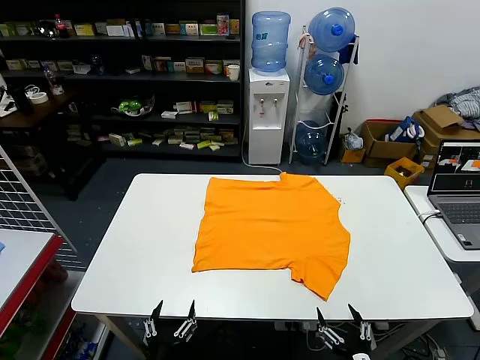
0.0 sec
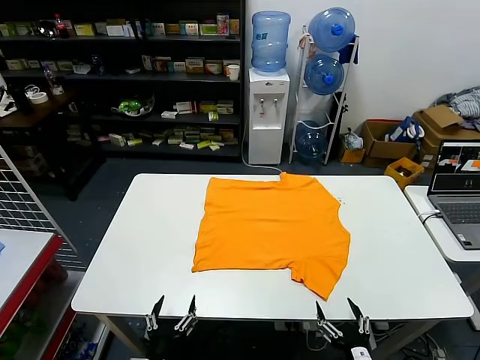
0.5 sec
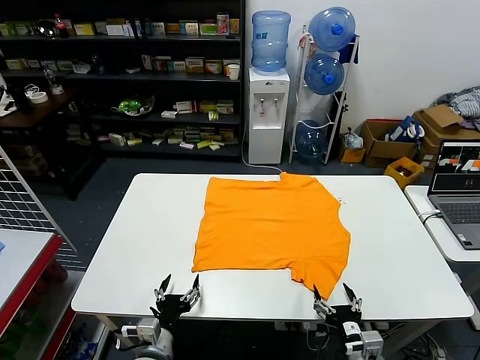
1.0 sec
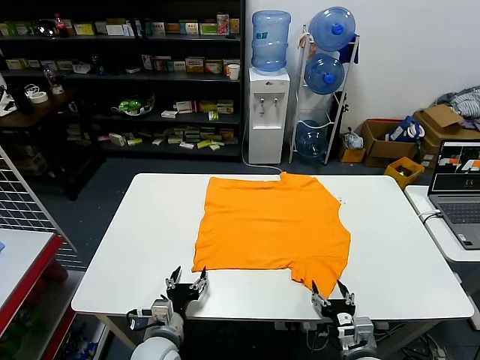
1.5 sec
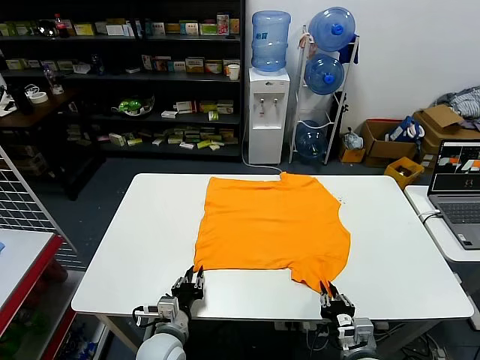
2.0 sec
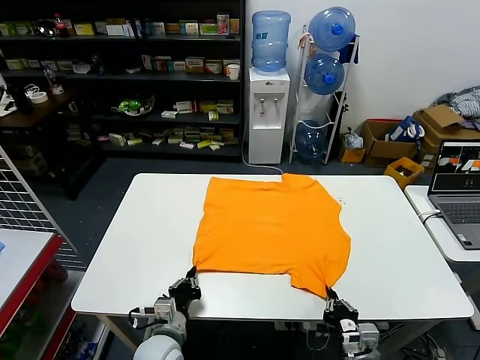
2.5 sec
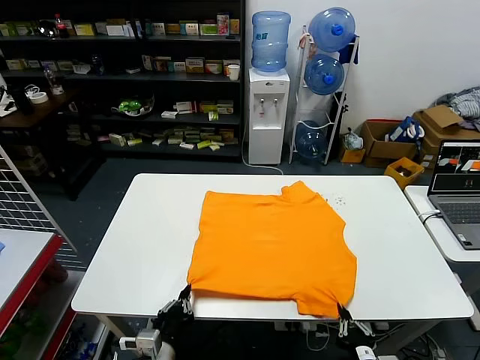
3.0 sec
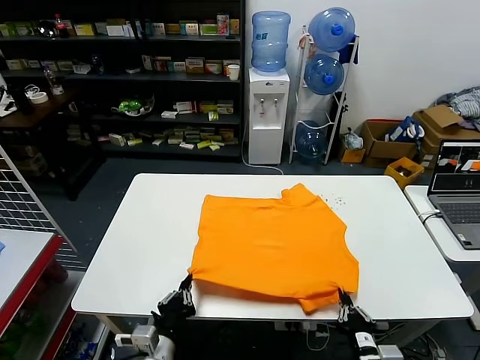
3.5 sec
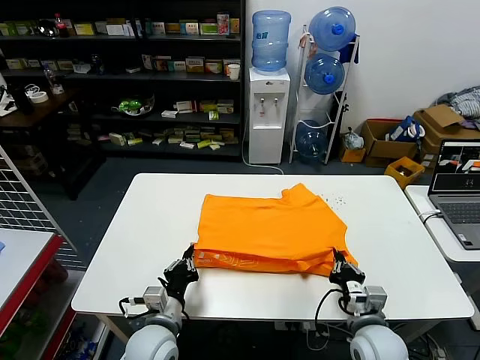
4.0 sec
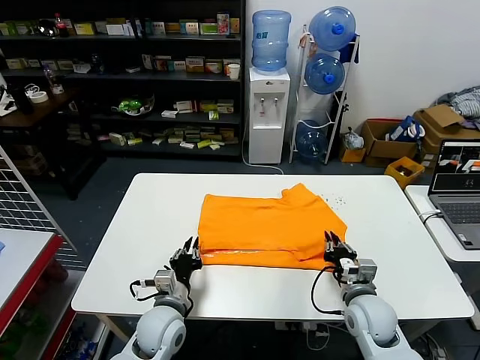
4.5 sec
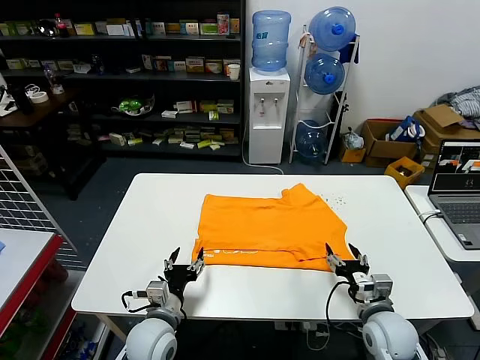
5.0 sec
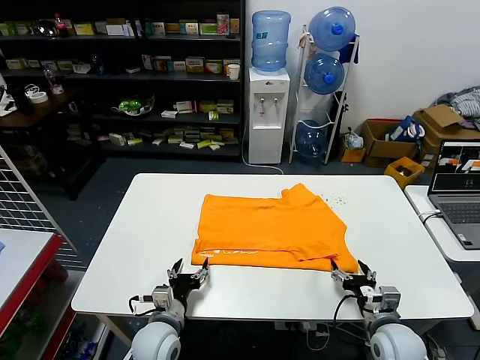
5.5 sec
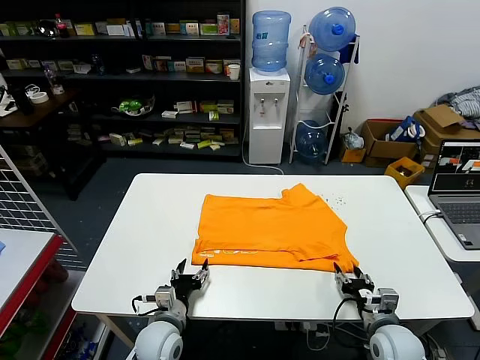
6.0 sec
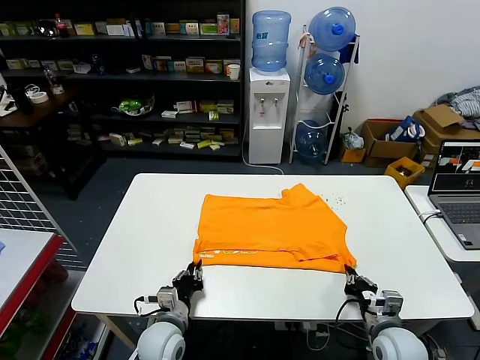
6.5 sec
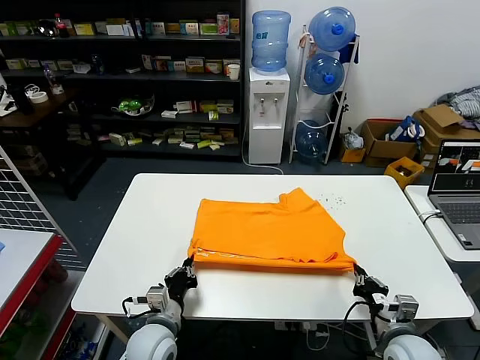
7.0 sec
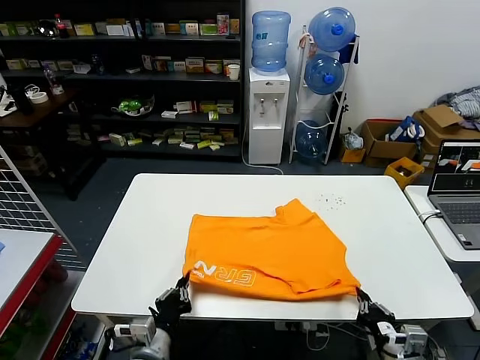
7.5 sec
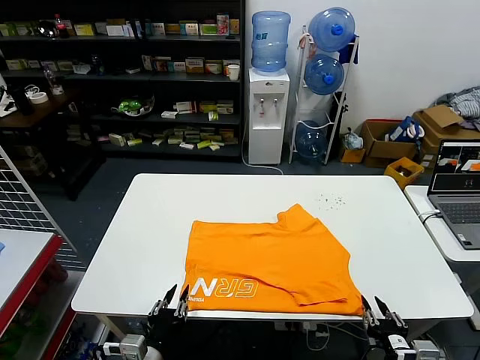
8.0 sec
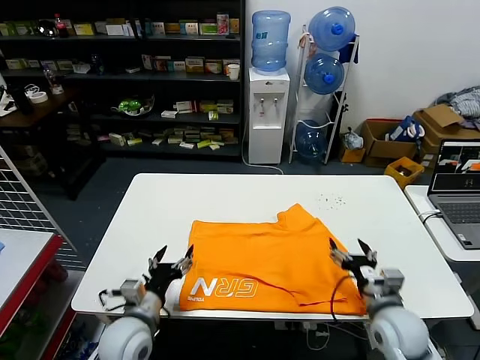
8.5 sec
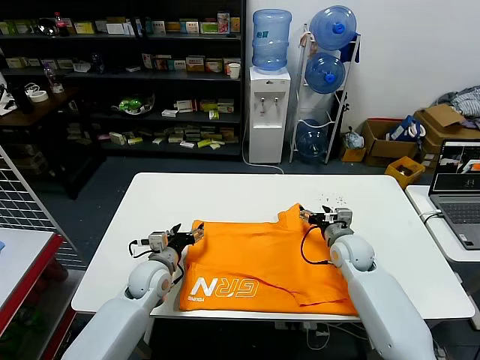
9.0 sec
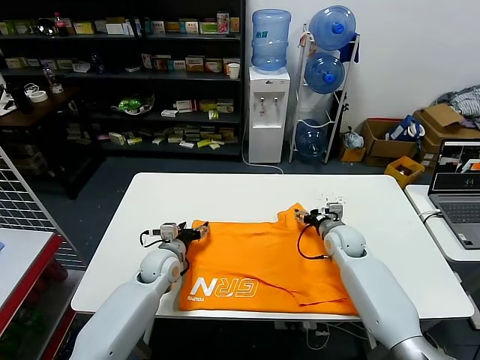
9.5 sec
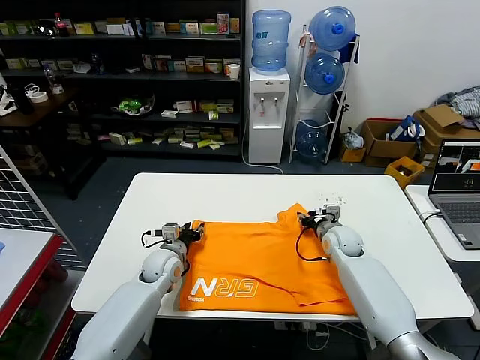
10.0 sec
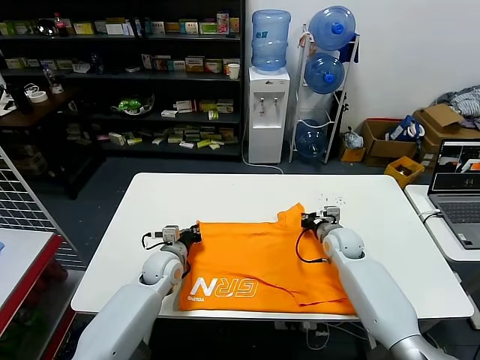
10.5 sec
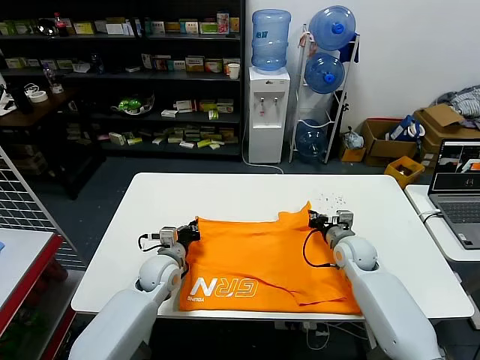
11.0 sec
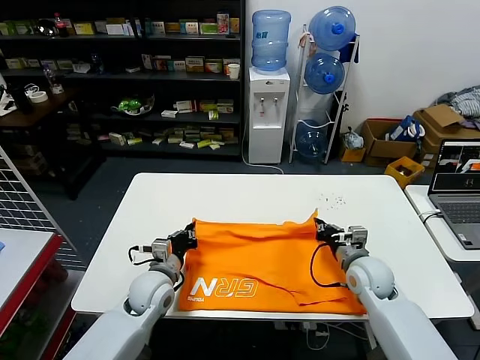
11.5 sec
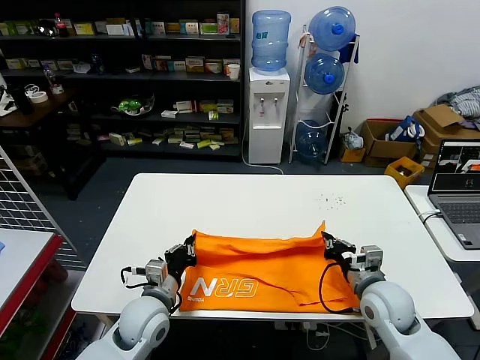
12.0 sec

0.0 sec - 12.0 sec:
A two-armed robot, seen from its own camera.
Task of the whole recording: fold and organize the clothes.
Step, 0.0 sec - 2.5 sec: use both grippers simultaneously to clamp the lower edge of the clothing fabric.
Step, 3.0 sec - 4.5 sec: use both grippers to drag the lower edge of the fabric forward and fold it over the upper edge.
Step, 5.0 sec - 7.5 sec: Drag the clothes downward with both gripper.
Step, 8.0 sec - 10.0 sec: use both grippers simultaneously to clamp the upper edge of the clothing fabric.
2.0 sec - 4.0 sec: Both grippers move upward, roughly 5 cm. The left gripper goes backward and returns, some 10 cm each way, and closes its fingers.
4.0 sec - 6.0 sec: The right gripper is displaced to the right by about 5 cm, and opens. Meanwhile the left gripper travels downward by approximately 5 cm, and opens up.
6.0 sec - 8.0 sec: The grippers both shift backward and upward by some 15 cm. The left gripper closes. The right gripper closes and opens again.
8.0 sec - 10.0 sec: Both grippers move forward, roughly 35 cm. The left gripper opens, then closes again; the right gripper opens, then closes once more.
10.0 sec - 12.0 sec: The two grippers go about 15 cm backward. The left gripper closes. Meanwhile the right gripper closes.

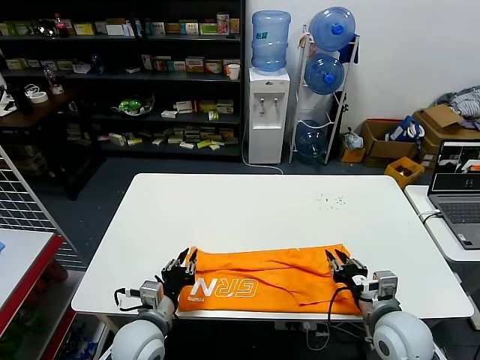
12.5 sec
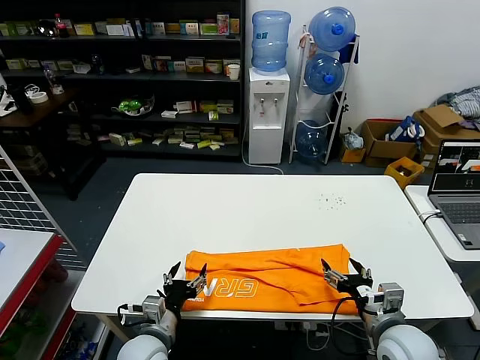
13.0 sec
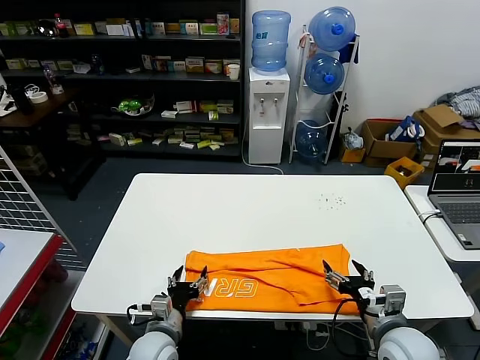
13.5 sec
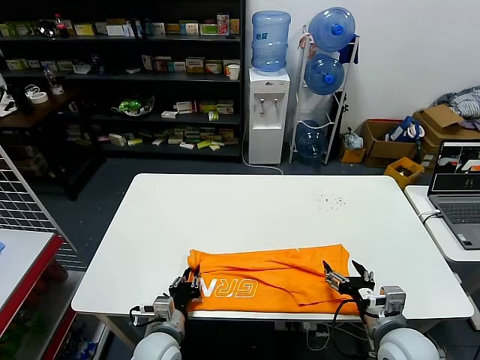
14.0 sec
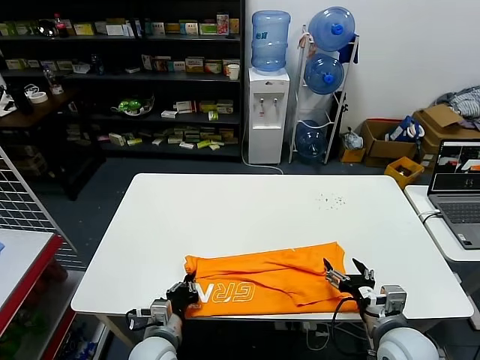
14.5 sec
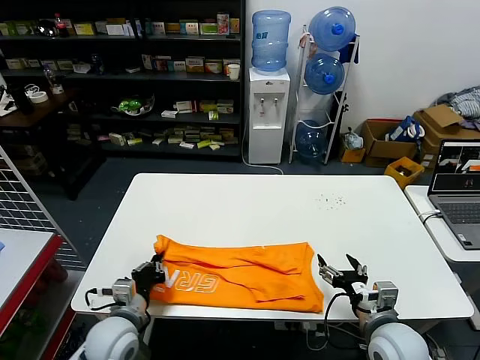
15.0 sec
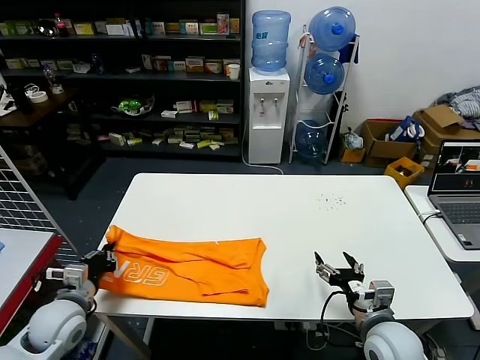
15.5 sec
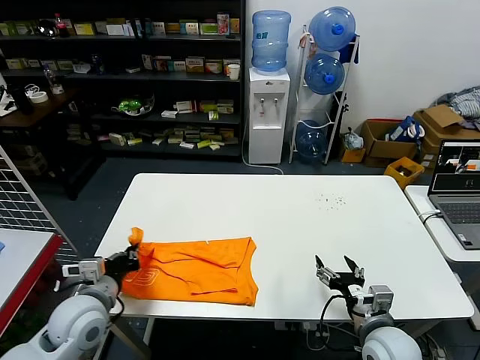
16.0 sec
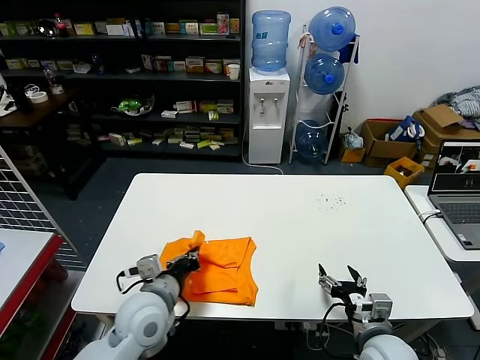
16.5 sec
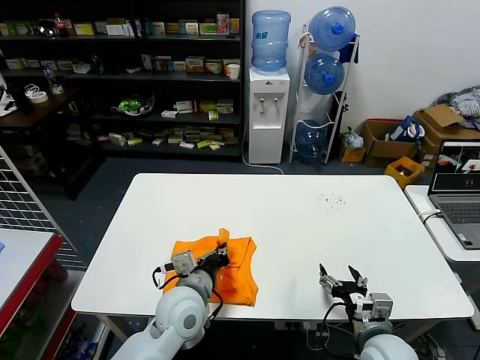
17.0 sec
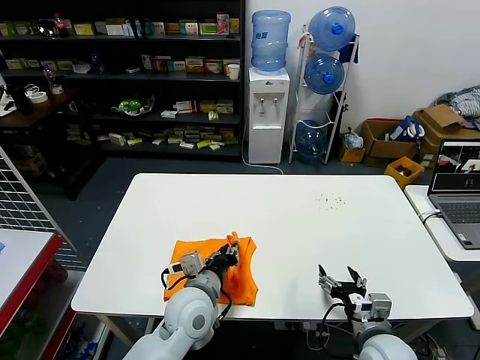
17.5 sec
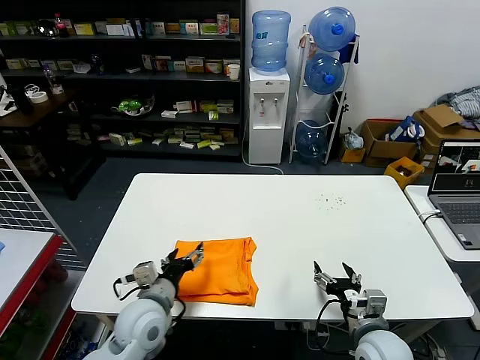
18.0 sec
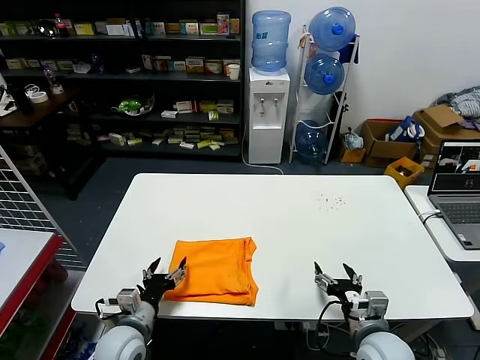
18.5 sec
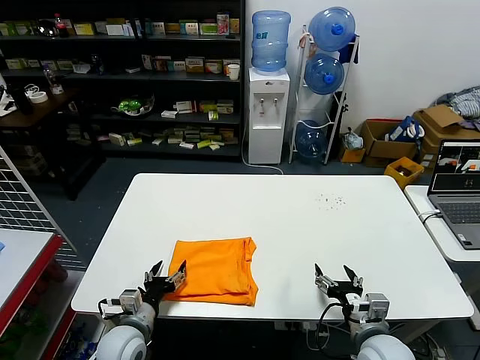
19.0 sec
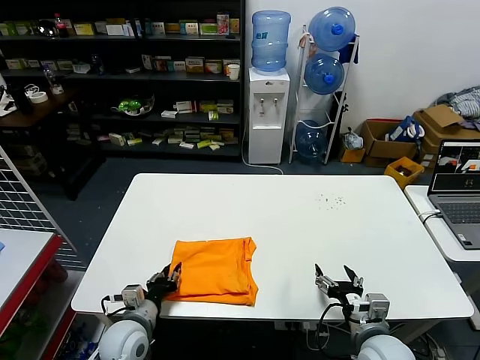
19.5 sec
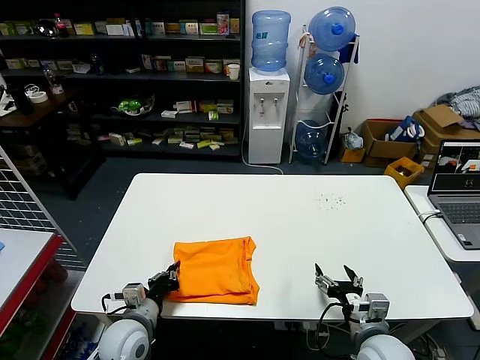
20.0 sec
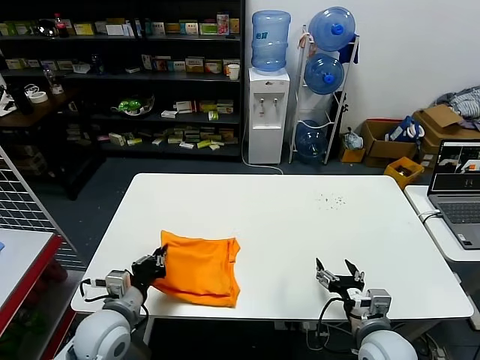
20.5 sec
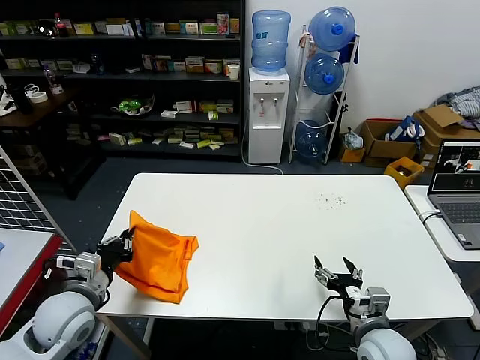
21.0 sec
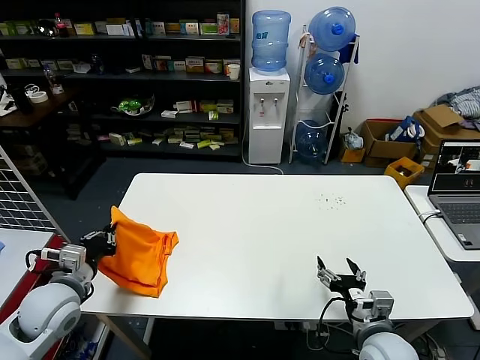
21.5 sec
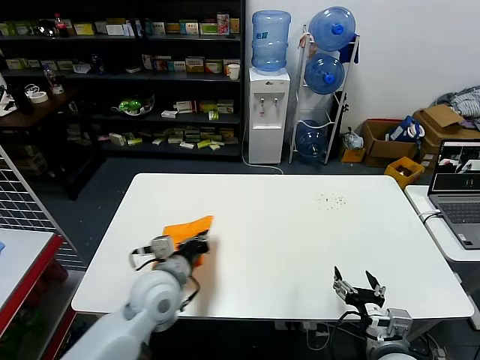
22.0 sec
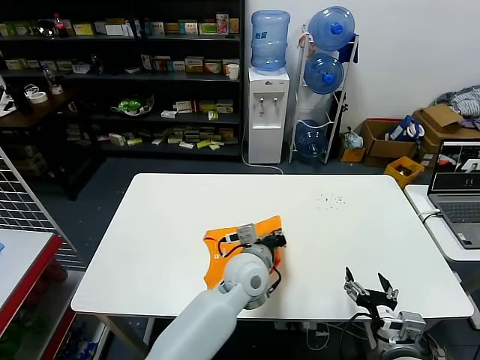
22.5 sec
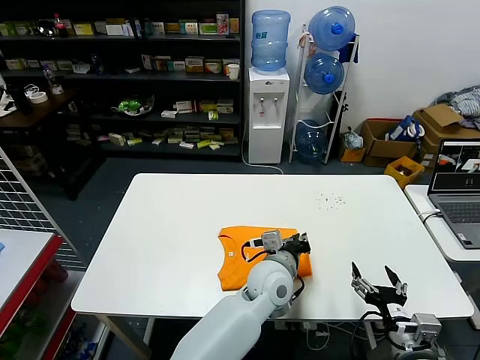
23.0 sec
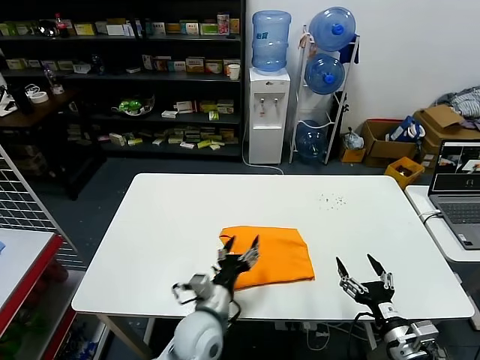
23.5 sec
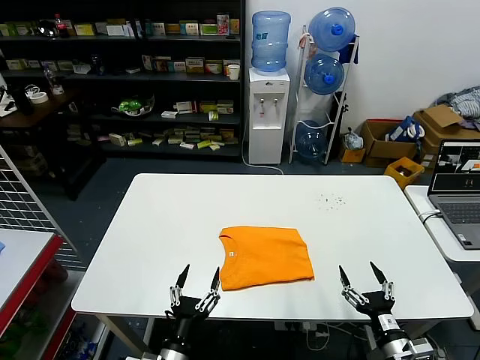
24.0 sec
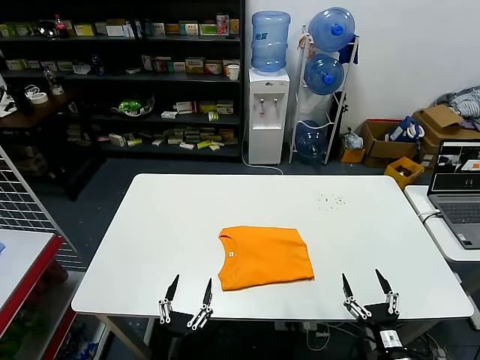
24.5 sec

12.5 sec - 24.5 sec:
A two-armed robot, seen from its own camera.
Task of the whole recording: fold and organize the clothes.
Step, 13.0 sec - 14.0 sec: use the left gripper to clamp the left edge of the fabric.
Step, 14.5 sec - 17.5 sec: use the left gripper to drag the left edge of the fabric to the left and folds it over the right edge.
Step, 18.0 sec - 23.0 sec: Flip the folded clothes over with left gripper.
12.5 sec - 14.5 sec: The right gripper opens its fingers. Meanwhile the left gripper is displaced downward by about 10 cm, and opens, then closes once more.
14.5 sec - 16.5 sec: The left gripper goes approximately 15 cm upward, and travels to the left and back again, roughly 15 cm each way.
16.5 sec - 18.5 sec: The left gripper moves downward and to the left, roughly 10 cm, and opens its fingers.
18.5 sec - 20.5 sec: The left gripper shifts about 5 cm upward, and closes up.
20.5 sec - 22.5 sec: The left gripper goes some 30 cm to the right and forward, while the right gripper shifts by approximately 5 cm.
22.5 sec - 24.5 sec: The right gripper travels downward by some 10 cm. Meanwhile the left gripper is displaced backward, to the left and downward by some 30 cm, and opens its fingers.

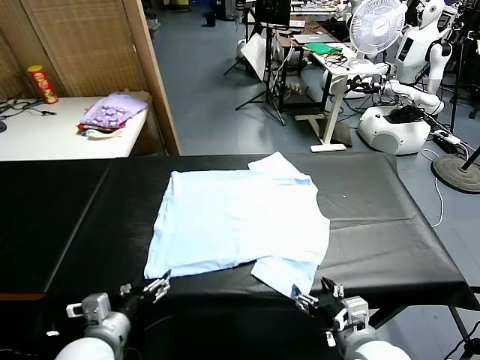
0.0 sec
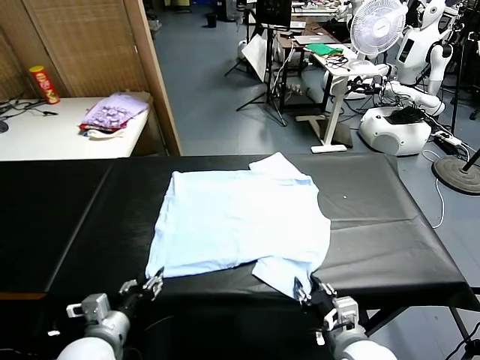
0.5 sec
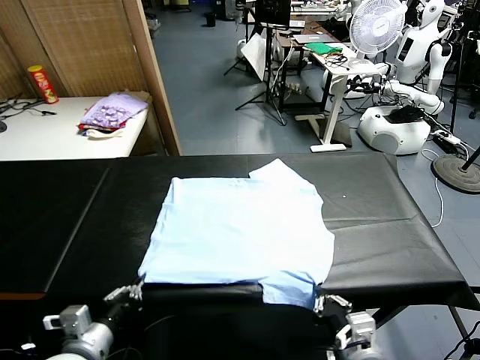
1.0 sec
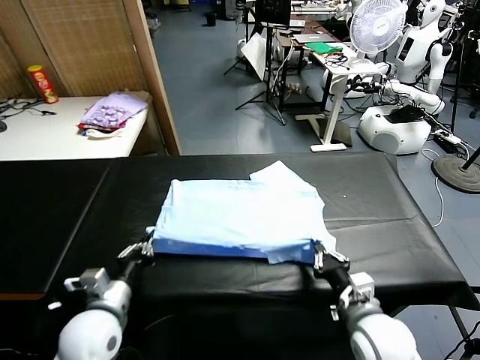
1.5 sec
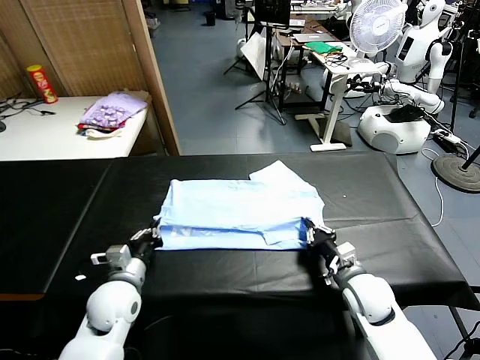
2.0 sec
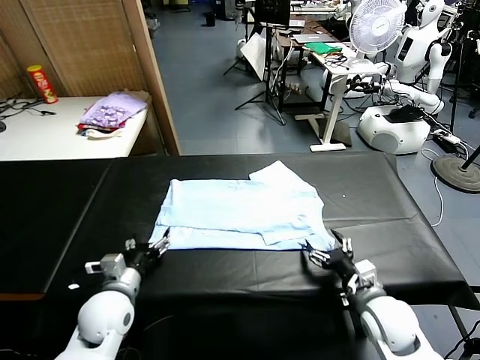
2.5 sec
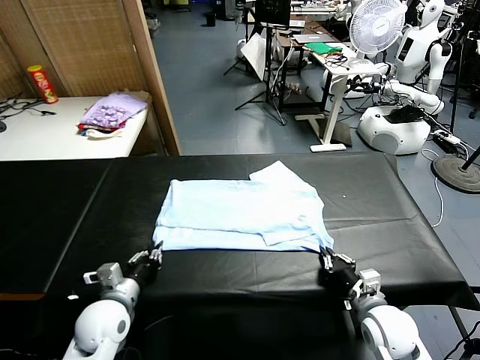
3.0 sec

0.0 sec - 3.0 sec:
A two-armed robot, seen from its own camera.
Task of the whole recording: fold and organize the clothes.
Step, 0.0 sec - 0.5 sec: use both grippers simultaneously to clamp the lower edge of the clothing fabric.
Step, 1.0 sec - 2.0 sec: use both grippers to drag the lower edge of the fabric forward and fold it over the upper edge.
1.5 sec - 3.0 sec: The left gripper opens and closes again; the right gripper changes place by roughly 5 cm, and opens, then closes again.
